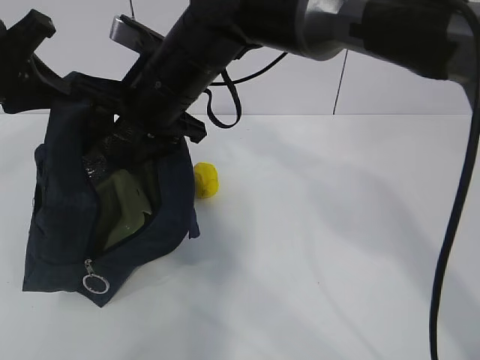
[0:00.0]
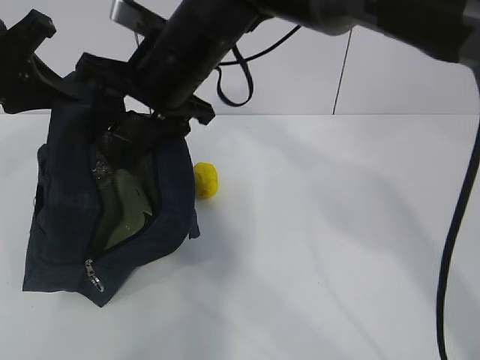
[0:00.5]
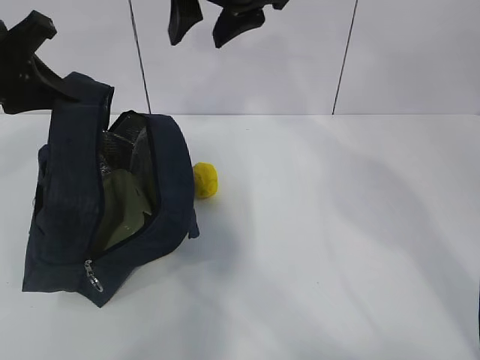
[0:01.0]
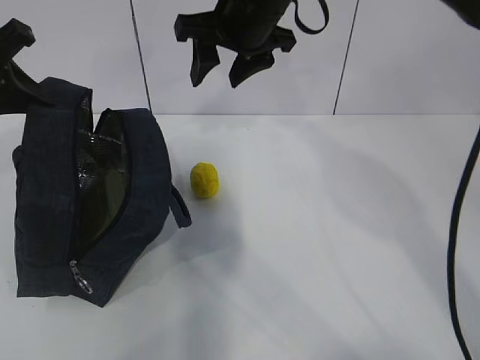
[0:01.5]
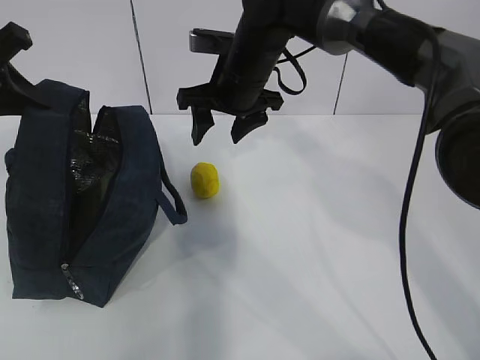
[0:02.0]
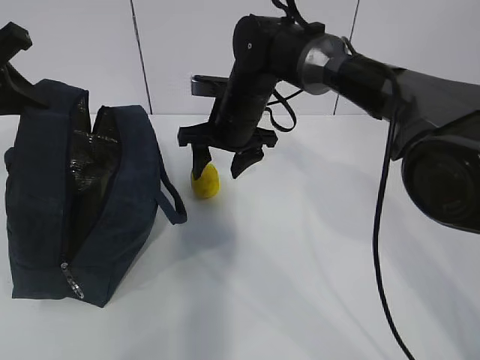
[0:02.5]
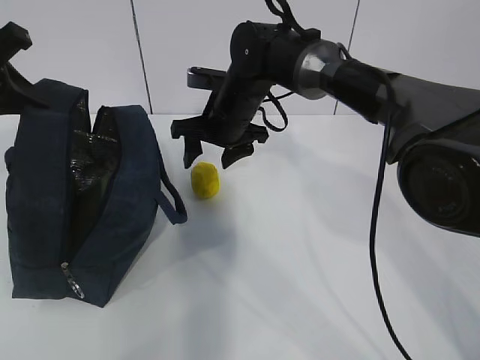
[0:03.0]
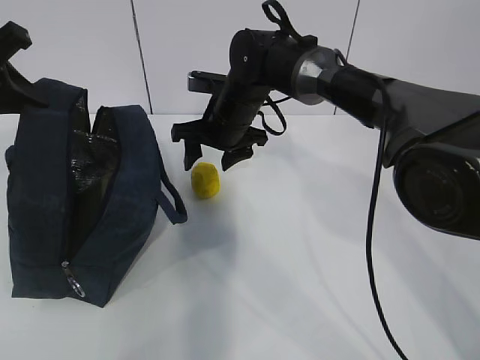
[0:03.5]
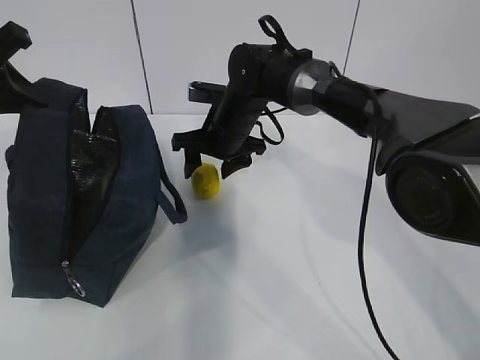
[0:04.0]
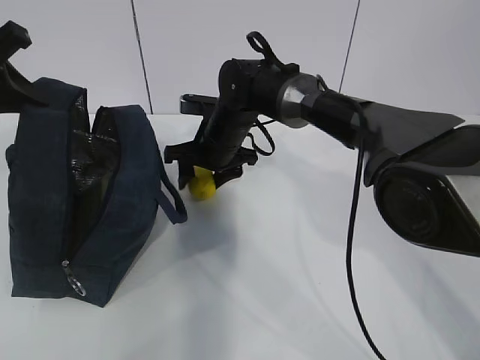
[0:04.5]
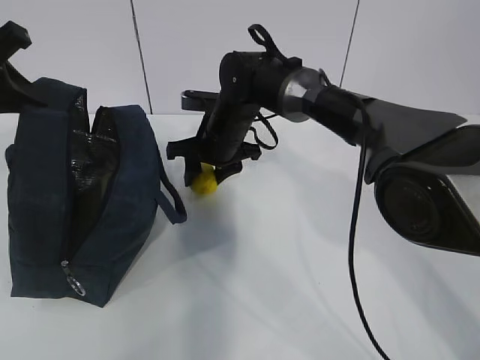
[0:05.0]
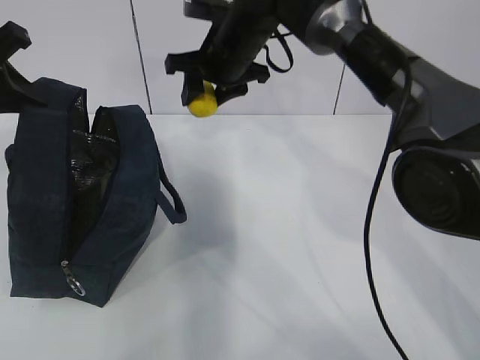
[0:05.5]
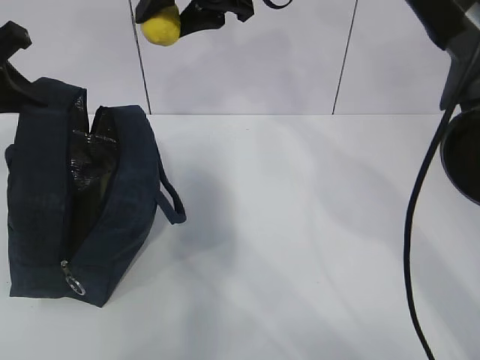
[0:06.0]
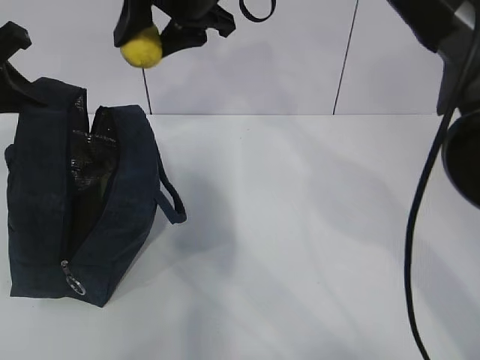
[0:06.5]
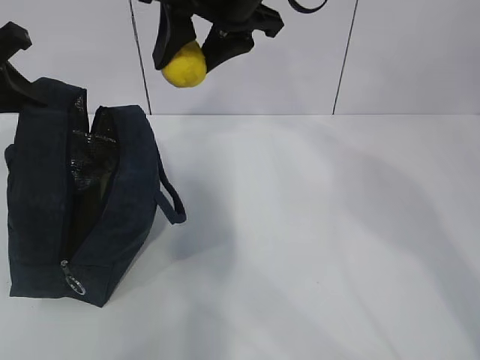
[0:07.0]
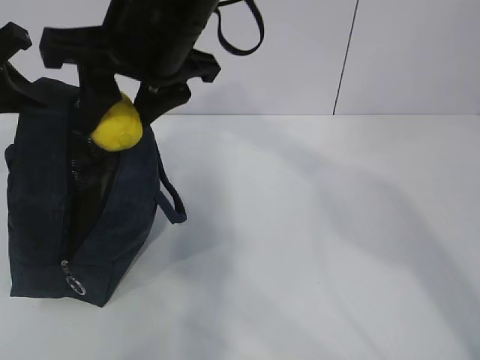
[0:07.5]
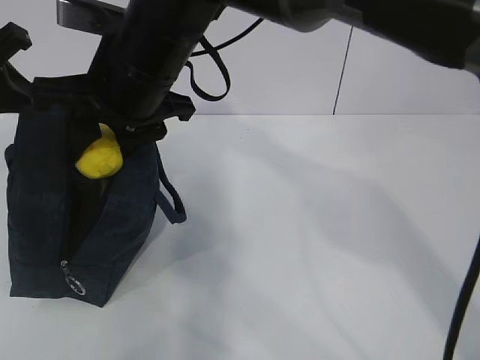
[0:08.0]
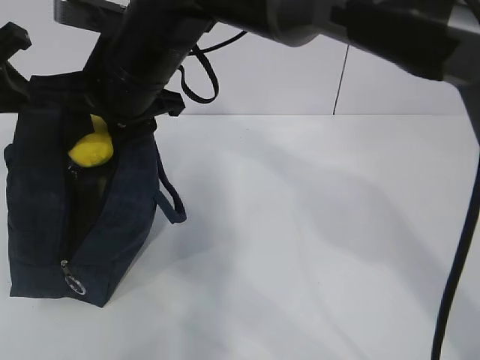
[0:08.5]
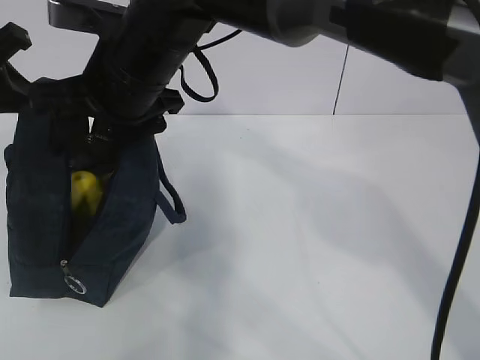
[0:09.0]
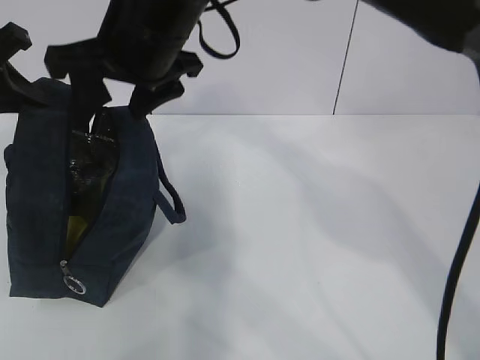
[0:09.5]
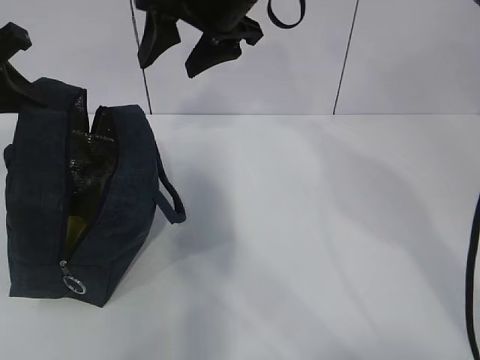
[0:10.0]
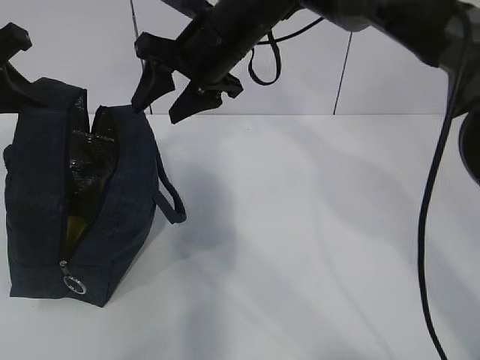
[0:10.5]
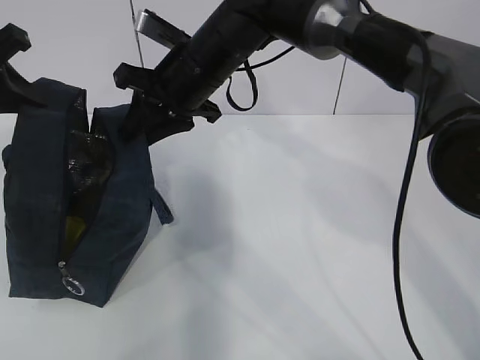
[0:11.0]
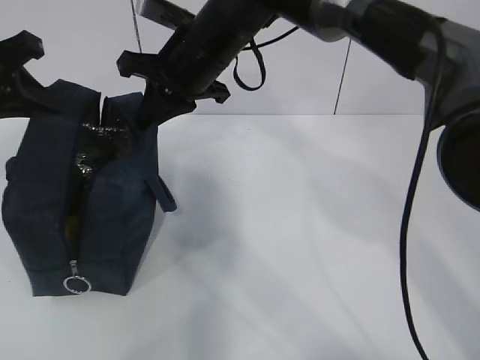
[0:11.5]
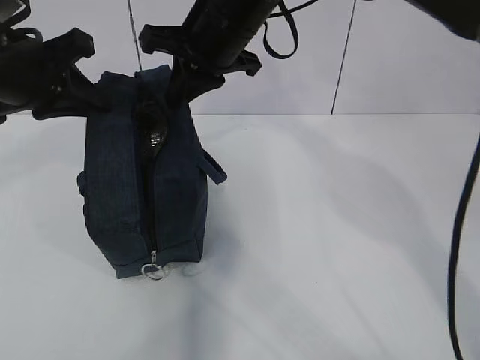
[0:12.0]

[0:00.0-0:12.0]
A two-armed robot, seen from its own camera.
Step, 0:03.0 to 0:04.0: Grab the lunch bag with your right hand.
Step, 0:04.5 to 0:07.0: Move the lunch bag to the right.
0:00.0 to 0:02.0: The right gripper moves forward and to the right, some 10 cm, and moves approximately 10 cm upward and comes back.
0:02.0 to 0:04.0: The right gripper moves downward, about 10 cm.
0:04.0 to 0:06.0: The right gripper travels upward by about 20 cm.
0:06.0 to 0:08.0: The right gripper is displaced backward, to the left and downward by approximately 15 cm.
0:08.0 to 0:10.0: The right gripper moves to the right and forward, approximately 10 cm.
0:10.0 to 0:12.0: The right gripper closes up. The left gripper is displaced to the right by about 5 cm.

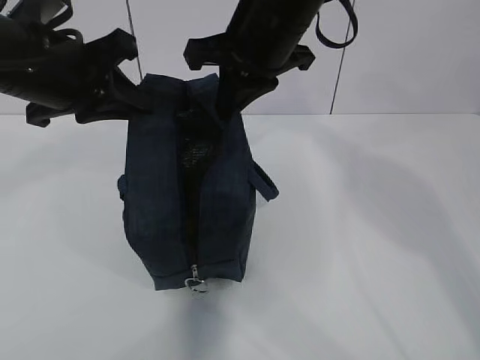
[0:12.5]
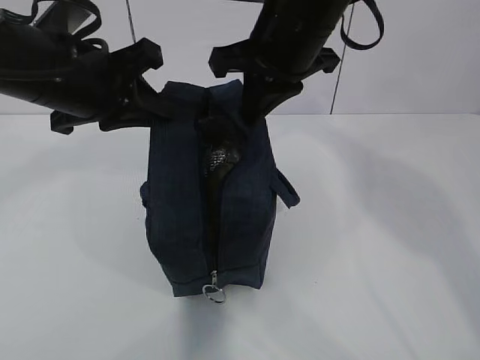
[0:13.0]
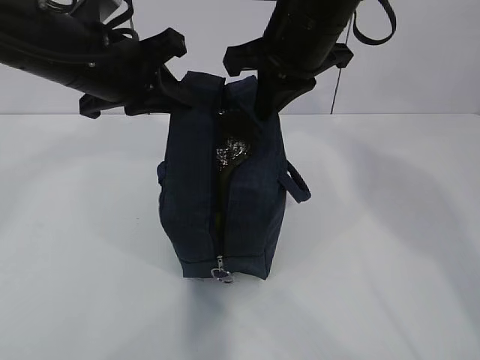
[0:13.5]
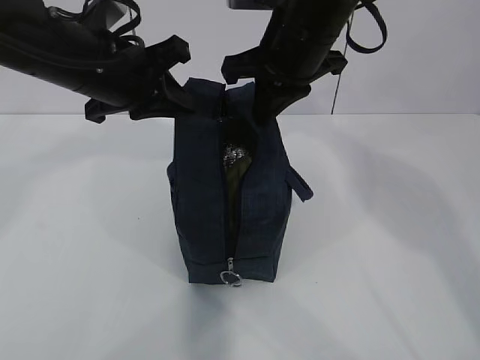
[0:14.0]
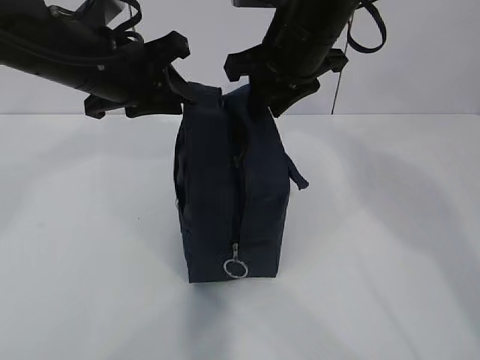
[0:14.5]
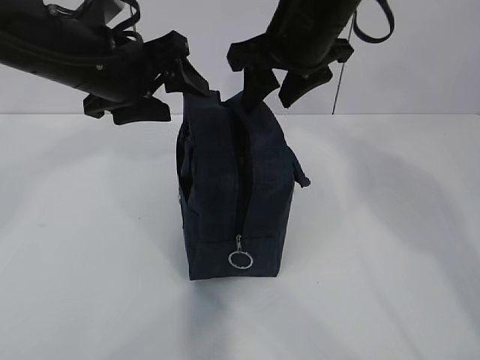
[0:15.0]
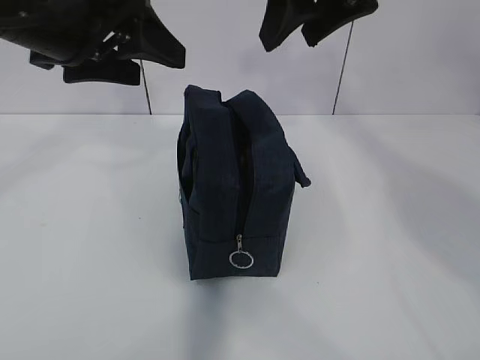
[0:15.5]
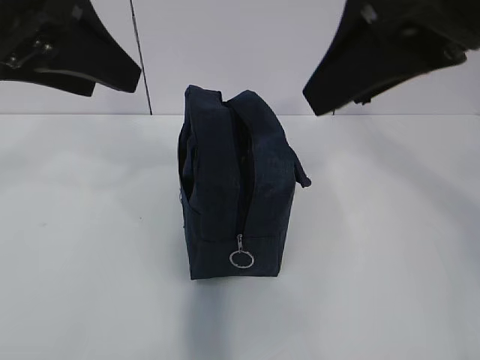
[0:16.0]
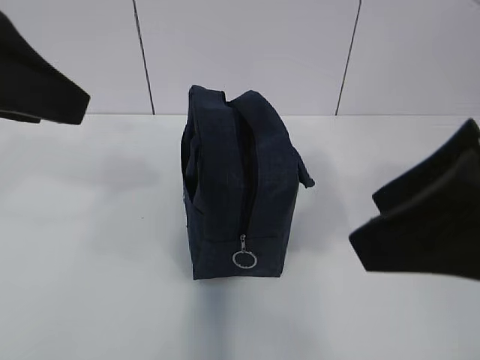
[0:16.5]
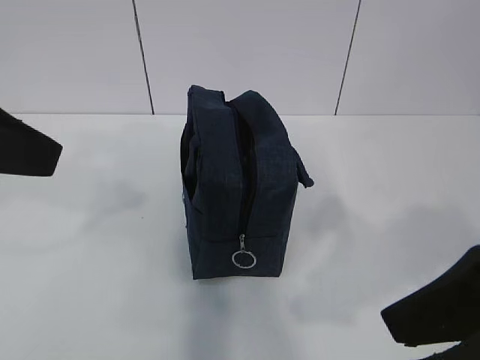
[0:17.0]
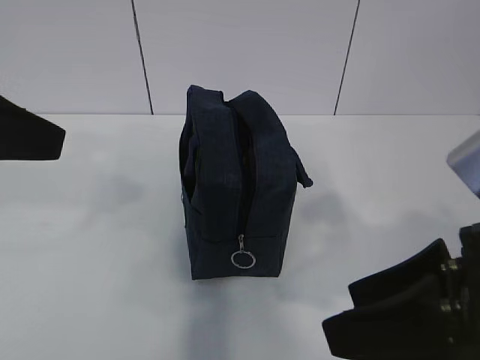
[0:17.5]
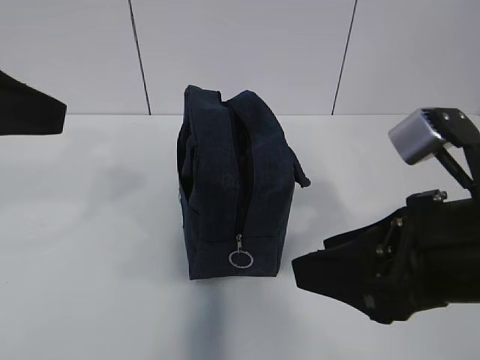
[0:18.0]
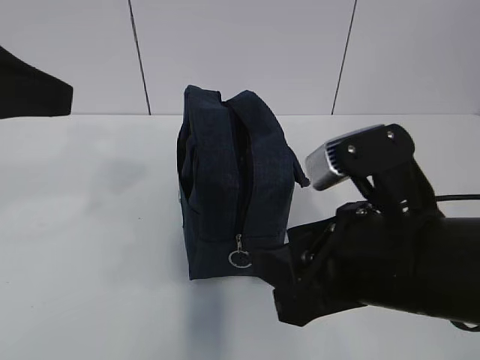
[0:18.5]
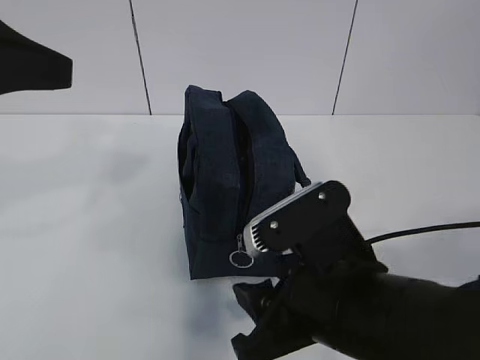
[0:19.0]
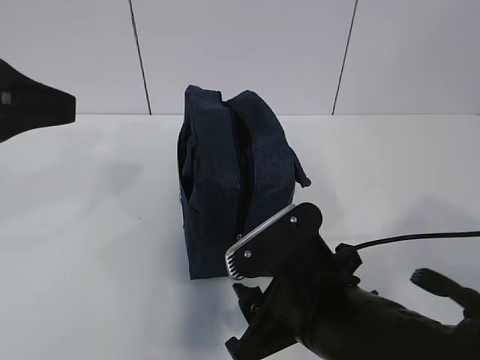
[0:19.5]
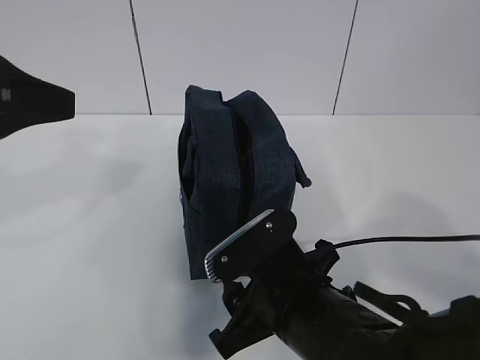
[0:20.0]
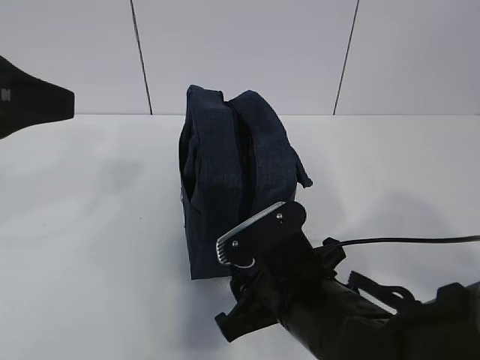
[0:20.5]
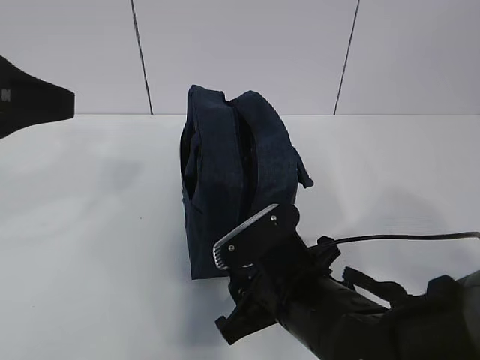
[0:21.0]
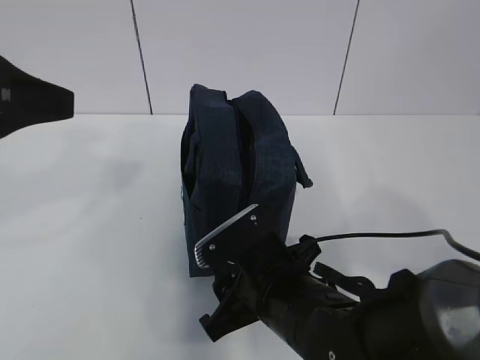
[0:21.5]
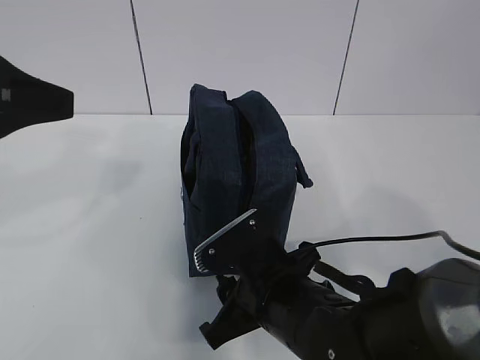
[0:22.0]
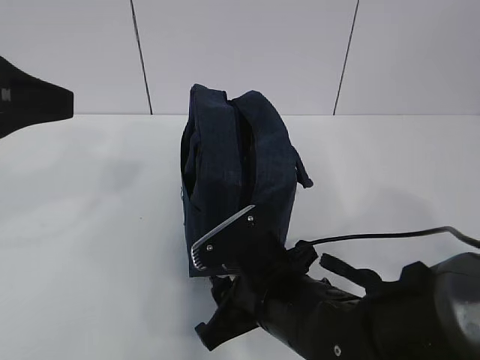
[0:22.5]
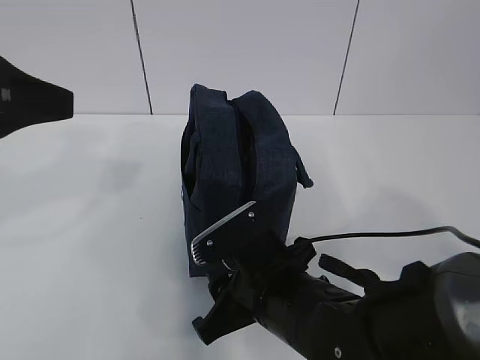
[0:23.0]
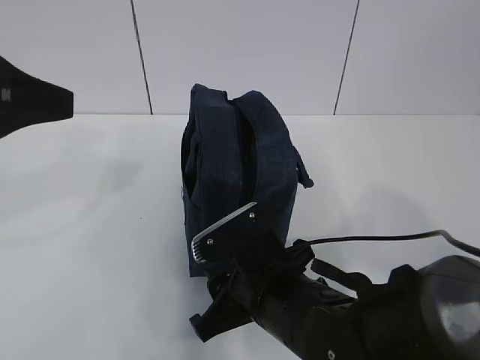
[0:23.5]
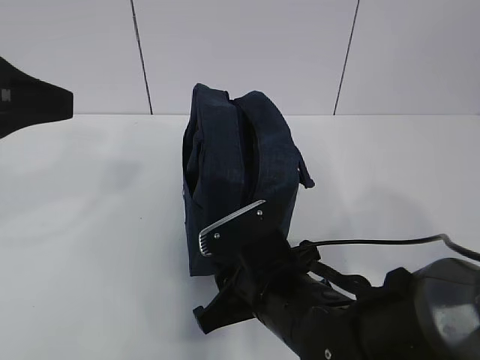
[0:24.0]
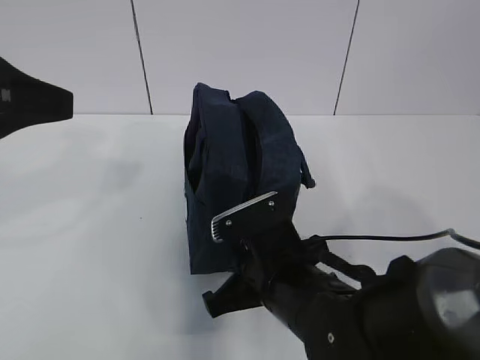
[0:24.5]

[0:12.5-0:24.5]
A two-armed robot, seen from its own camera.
0:12.5 to 0:14.5: The right gripper opens up, while the left gripper changes place by about 5 cm.
0:14.5 to 0:16.5: The left gripper is displaced backward, upward and to the left by approximately 20 cm, and opens its fingers. The right gripper shifts approximately 25 cm backward, and opens.
0:16.5 to 0:18.5: The right gripper is displaced downward and to the left by roughly 15 cm.
0:18.5 to 0:20.5: The right gripper goes about 15 cm downward and to the left.
0:20.5 to 0:22.5: The grippers make only small movements.
0:22.5 to 0:24.5: The right gripper closes its fingers.

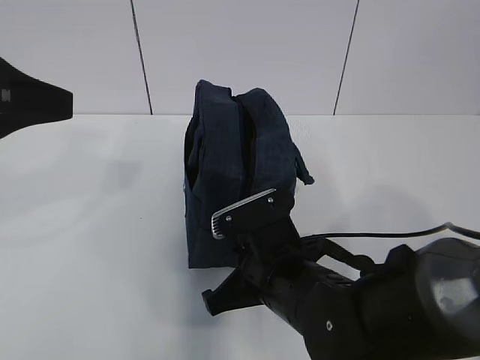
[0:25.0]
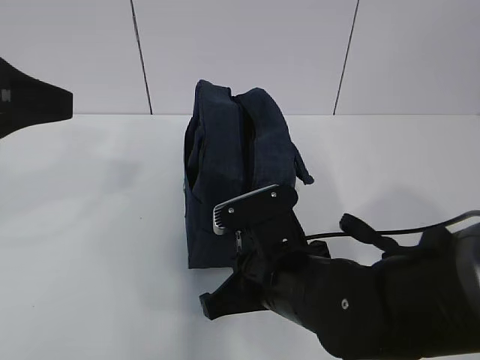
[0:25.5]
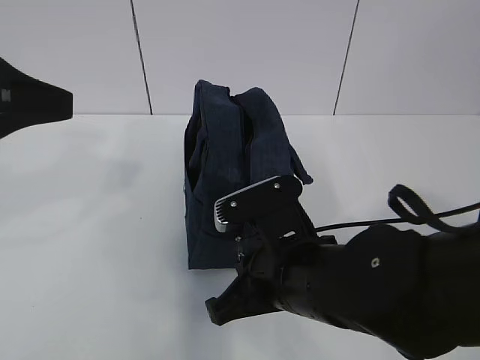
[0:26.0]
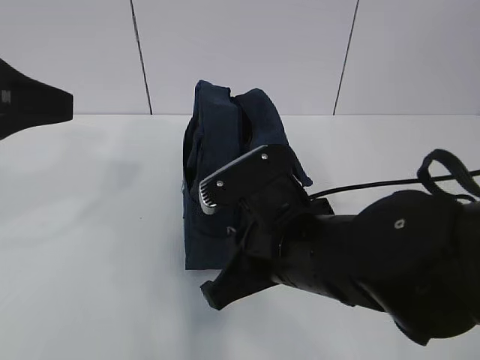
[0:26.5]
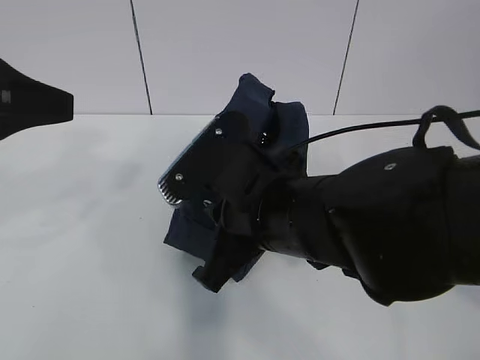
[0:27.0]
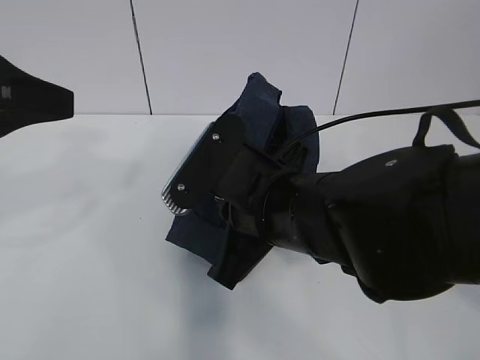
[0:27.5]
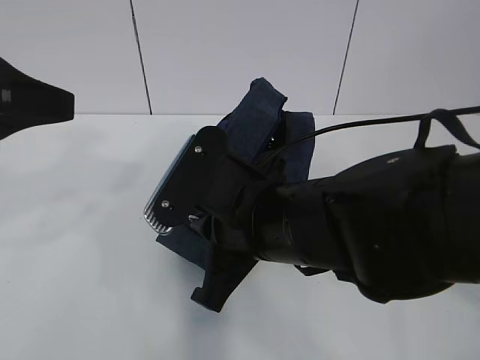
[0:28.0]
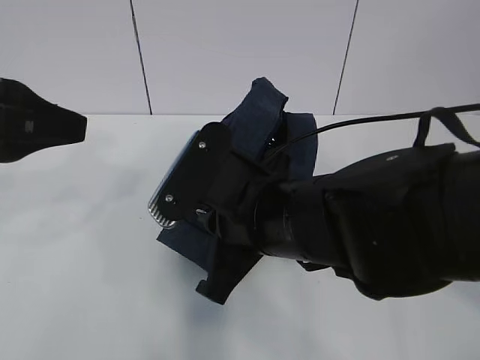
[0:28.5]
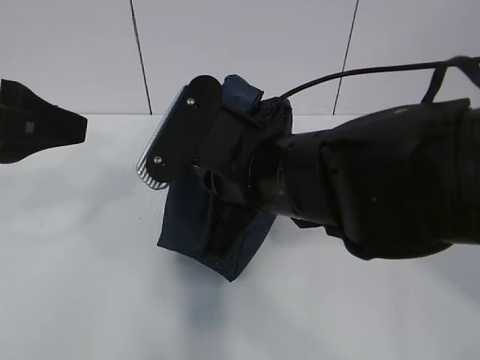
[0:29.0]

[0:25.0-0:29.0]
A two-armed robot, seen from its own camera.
0:25.0 to 0:27.0: The right gripper moves upward, roughly 10 cm.
0:27.0 to 0:29.0: There are only small adjustments of the grippers.
